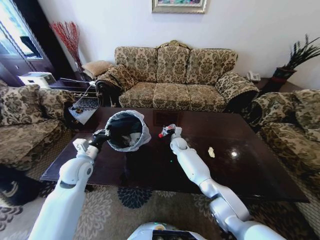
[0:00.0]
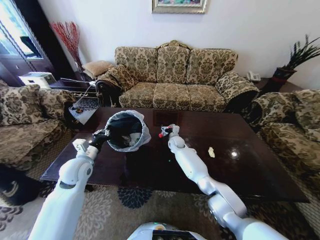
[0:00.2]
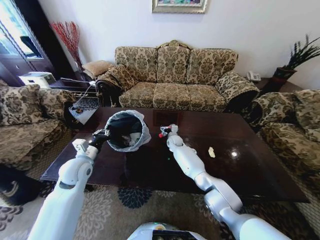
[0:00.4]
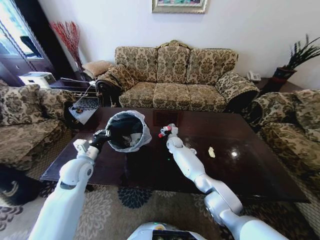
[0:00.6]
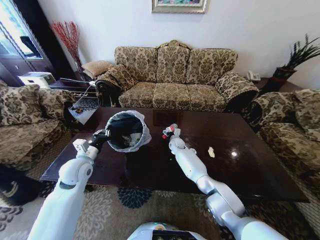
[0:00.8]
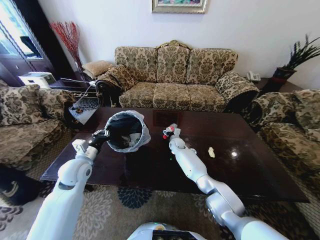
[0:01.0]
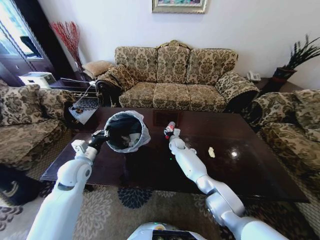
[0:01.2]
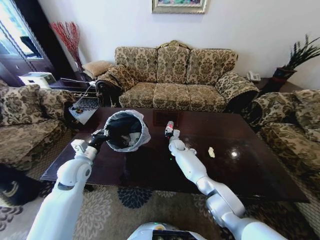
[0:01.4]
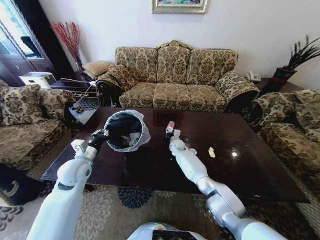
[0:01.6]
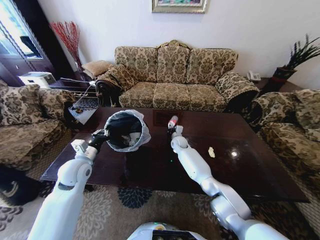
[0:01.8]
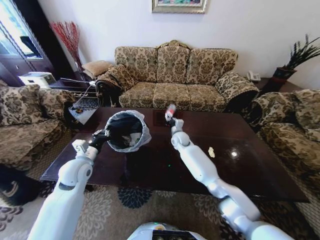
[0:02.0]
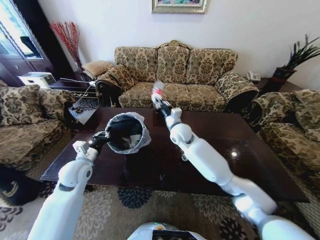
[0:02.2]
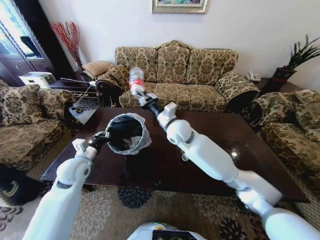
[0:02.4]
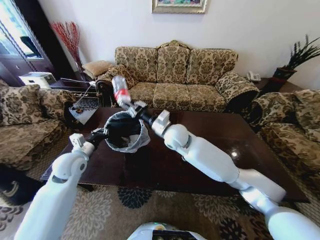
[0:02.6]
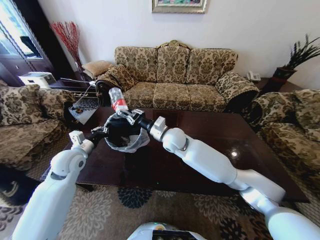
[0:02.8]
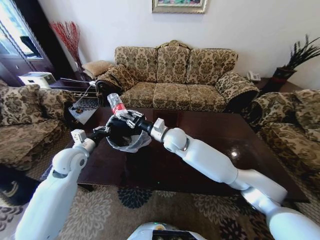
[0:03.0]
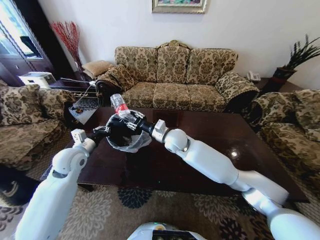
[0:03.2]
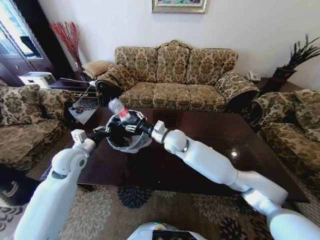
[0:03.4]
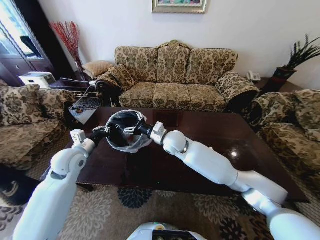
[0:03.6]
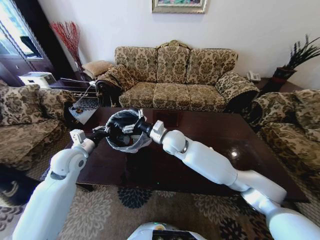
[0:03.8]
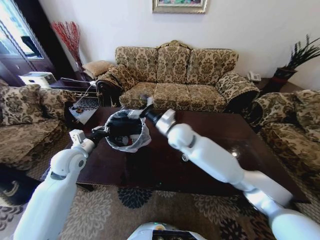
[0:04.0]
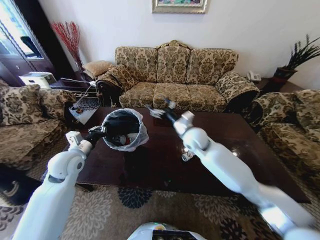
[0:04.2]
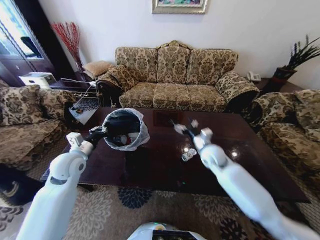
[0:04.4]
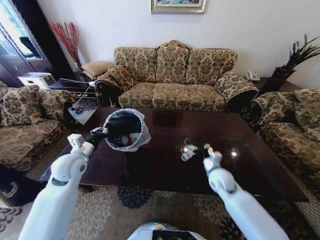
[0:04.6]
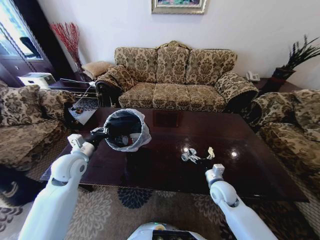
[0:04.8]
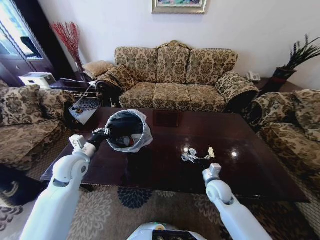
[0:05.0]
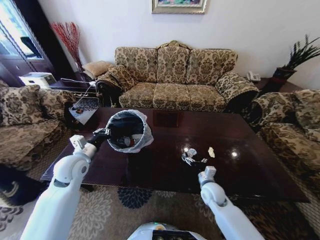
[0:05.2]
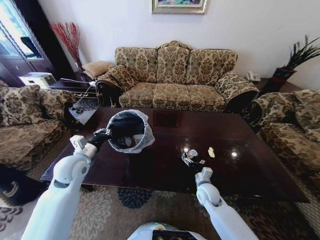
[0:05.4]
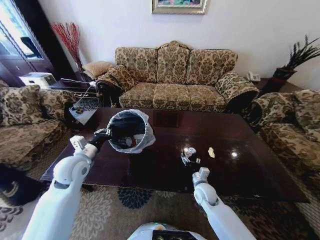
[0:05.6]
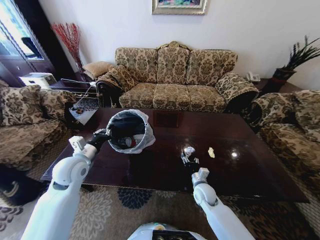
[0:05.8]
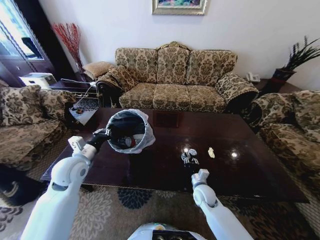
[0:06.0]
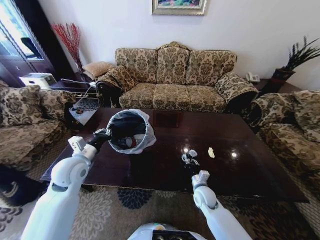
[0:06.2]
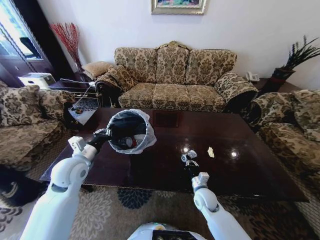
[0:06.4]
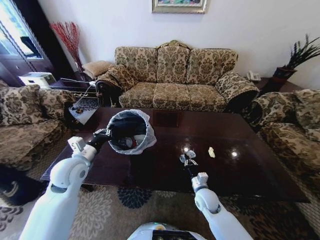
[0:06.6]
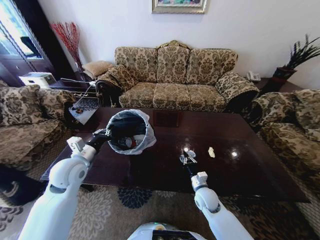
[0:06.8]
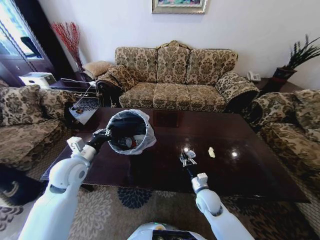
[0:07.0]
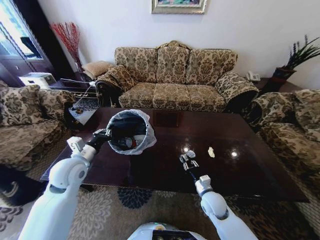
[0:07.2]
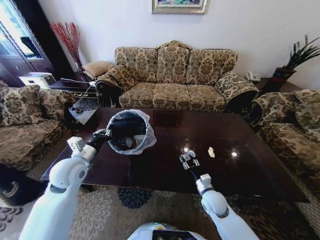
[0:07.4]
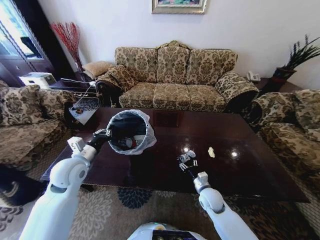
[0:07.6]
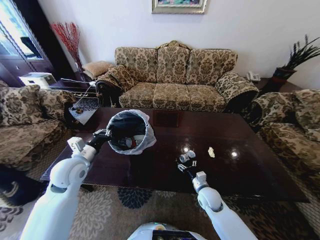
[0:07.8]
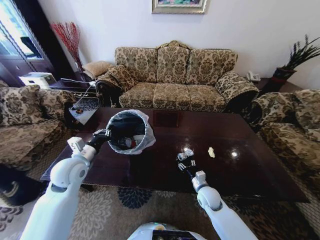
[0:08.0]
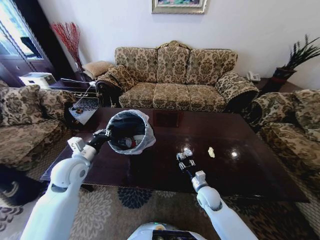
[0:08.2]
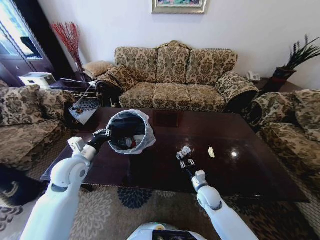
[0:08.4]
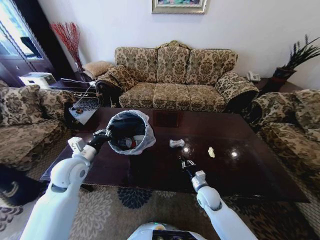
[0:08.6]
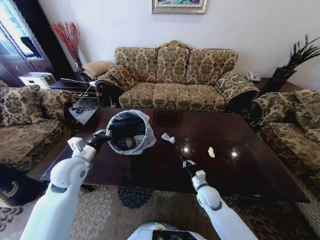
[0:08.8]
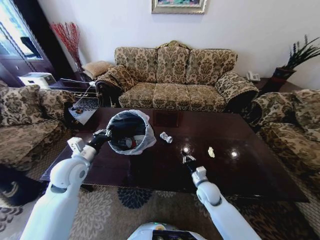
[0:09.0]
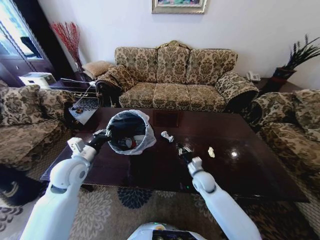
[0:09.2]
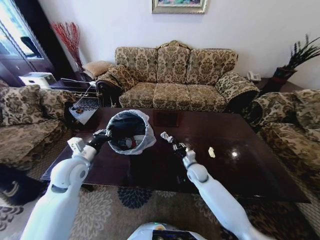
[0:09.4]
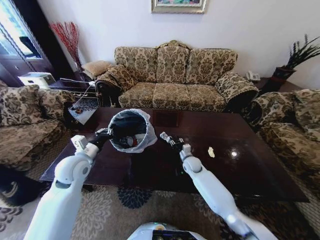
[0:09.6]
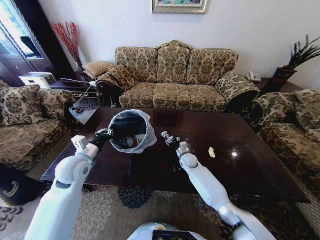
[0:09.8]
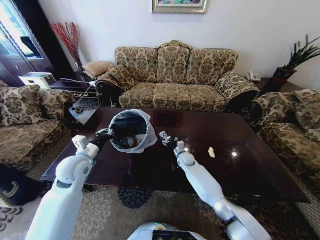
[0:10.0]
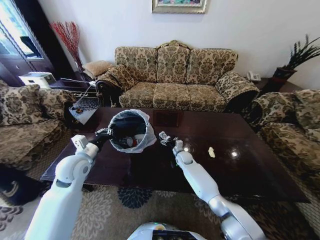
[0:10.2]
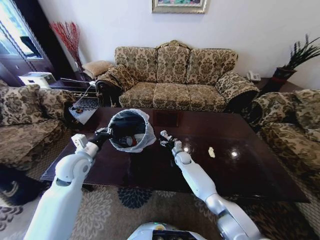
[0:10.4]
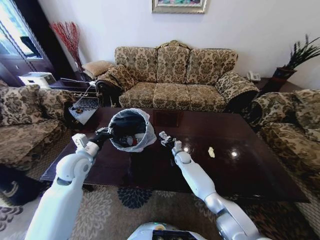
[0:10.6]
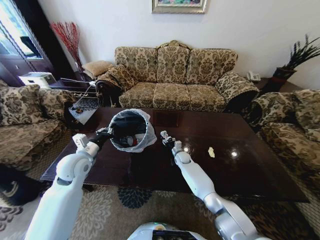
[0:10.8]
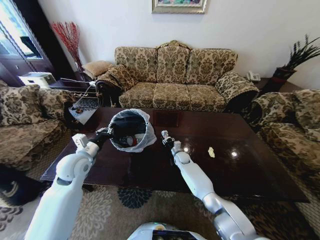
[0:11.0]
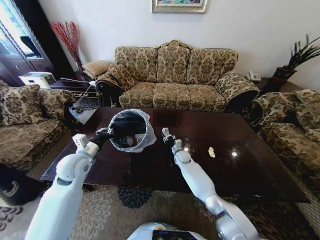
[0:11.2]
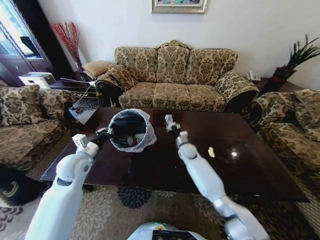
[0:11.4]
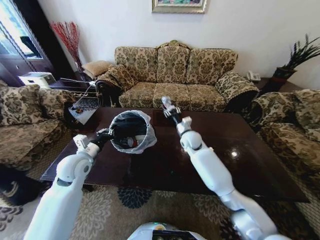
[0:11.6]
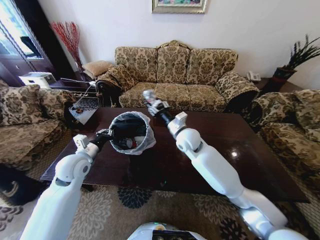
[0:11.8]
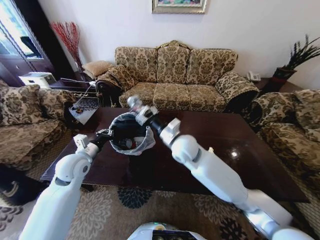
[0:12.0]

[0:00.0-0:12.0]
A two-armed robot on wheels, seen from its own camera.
Task of the whole recording: Move to the front of the table and place the trash on the table into the trash bin.
0:00.0 to 0:01.6: The right gripper closes its fingers.
0:01.6 to 0:03.0: The right gripper is displaced upward and backward by about 25 cm.
0:03.0 to 0:04.4: The right gripper heads to the right and downward, covering approximately 20 cm, and opens its fingers.
0:04.4 to 0:06.0: The right gripper travels downward and backward by some 20 cm, and closes its fingers.
0:07.6 to 0:09.0: The right gripper closes.
0:09.0 to 0:10.4: The right gripper is displaced forward and to the left by roughly 20 cm, and opens.
0:10.4 to 0:12.0: The right gripper shifts about 30 cm upward and backward, and closes up.

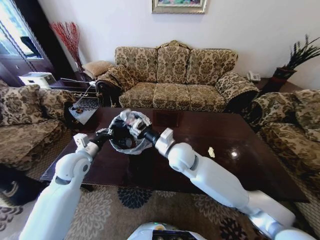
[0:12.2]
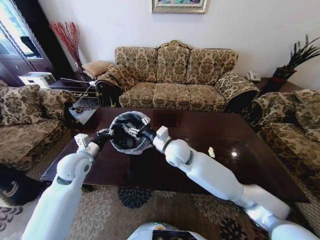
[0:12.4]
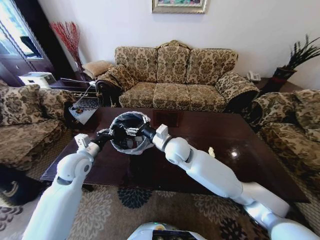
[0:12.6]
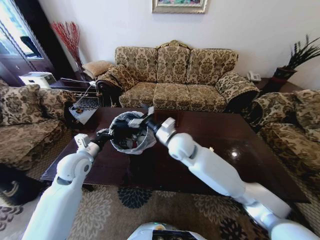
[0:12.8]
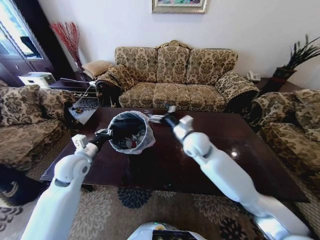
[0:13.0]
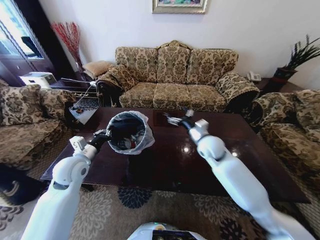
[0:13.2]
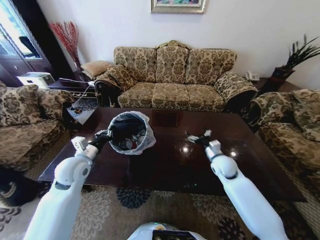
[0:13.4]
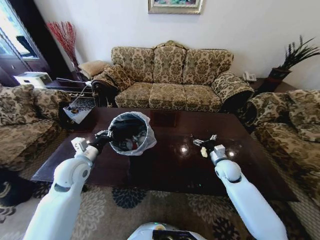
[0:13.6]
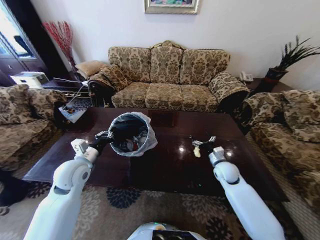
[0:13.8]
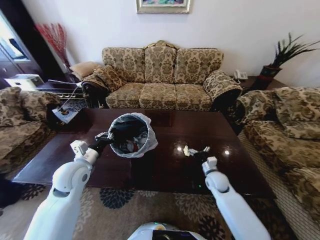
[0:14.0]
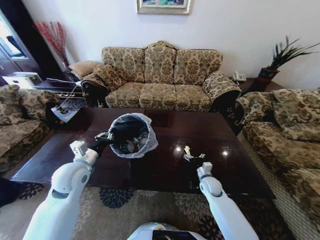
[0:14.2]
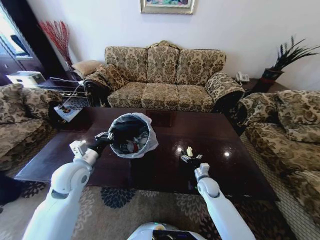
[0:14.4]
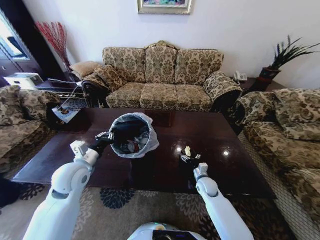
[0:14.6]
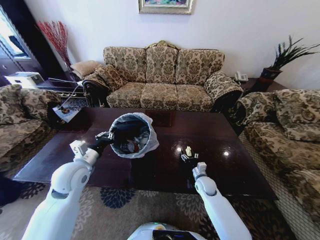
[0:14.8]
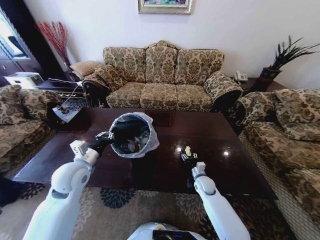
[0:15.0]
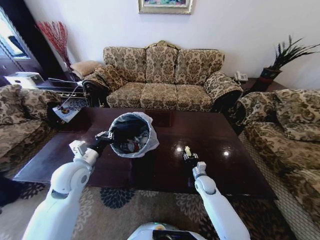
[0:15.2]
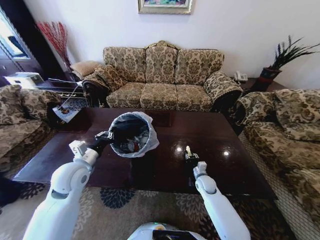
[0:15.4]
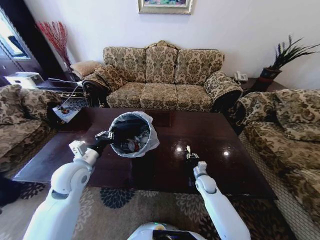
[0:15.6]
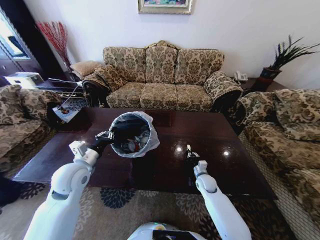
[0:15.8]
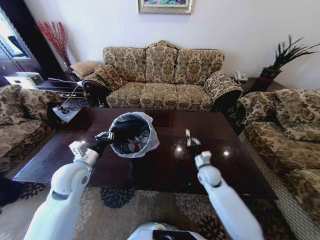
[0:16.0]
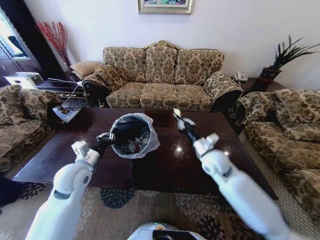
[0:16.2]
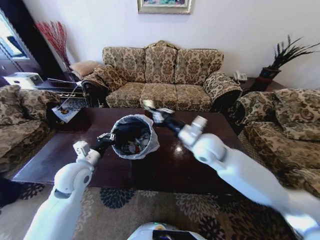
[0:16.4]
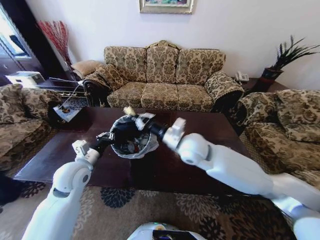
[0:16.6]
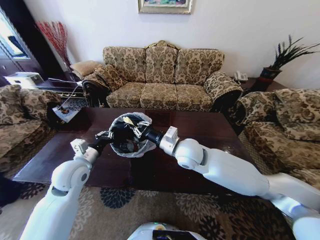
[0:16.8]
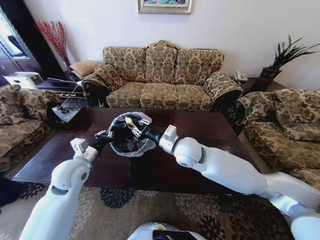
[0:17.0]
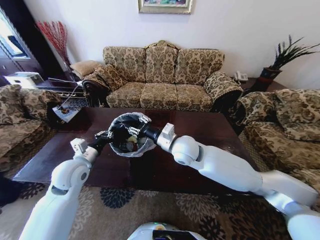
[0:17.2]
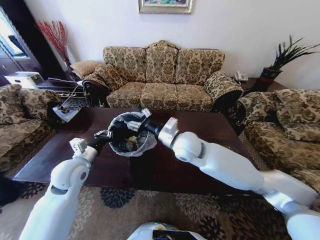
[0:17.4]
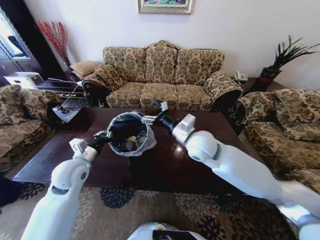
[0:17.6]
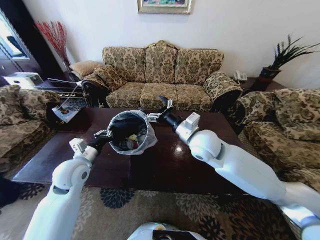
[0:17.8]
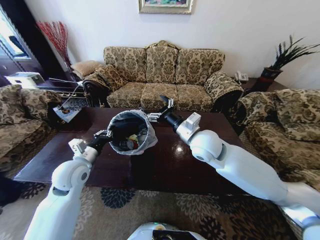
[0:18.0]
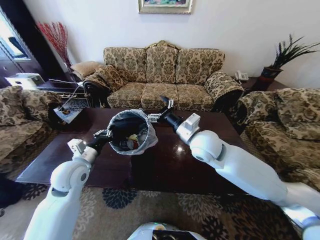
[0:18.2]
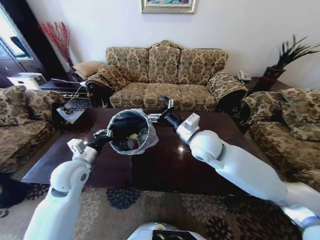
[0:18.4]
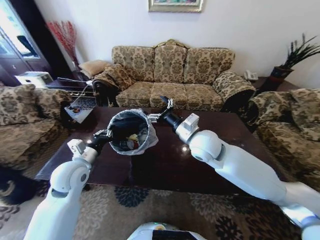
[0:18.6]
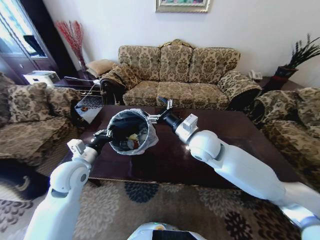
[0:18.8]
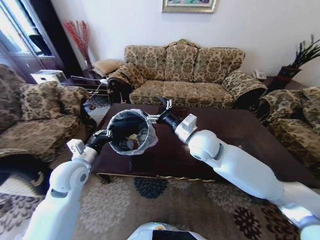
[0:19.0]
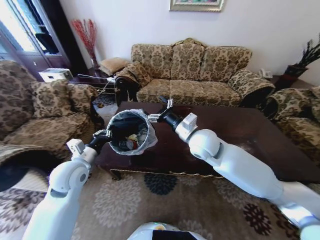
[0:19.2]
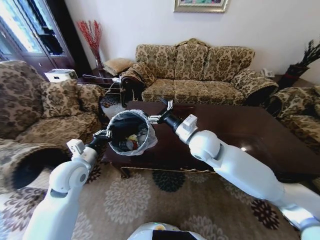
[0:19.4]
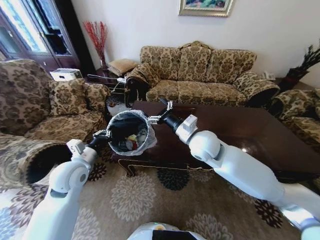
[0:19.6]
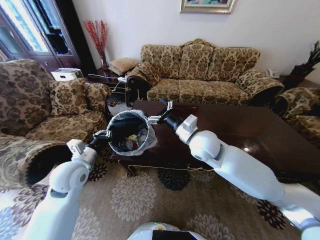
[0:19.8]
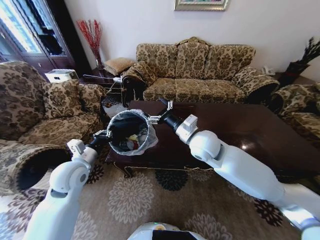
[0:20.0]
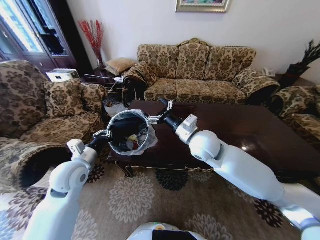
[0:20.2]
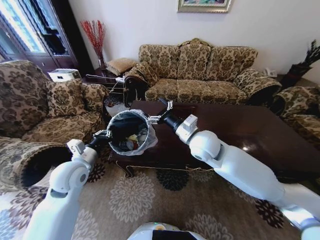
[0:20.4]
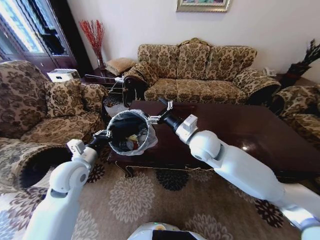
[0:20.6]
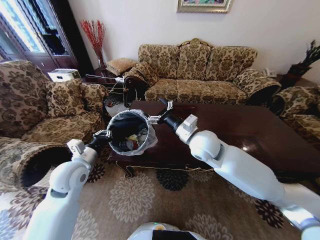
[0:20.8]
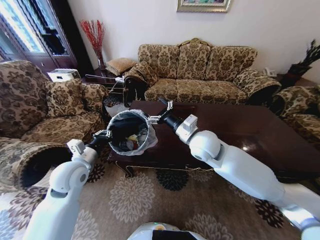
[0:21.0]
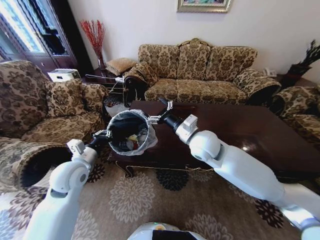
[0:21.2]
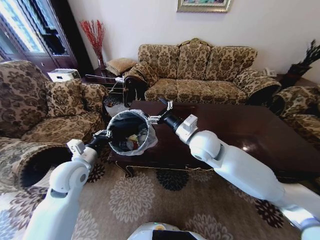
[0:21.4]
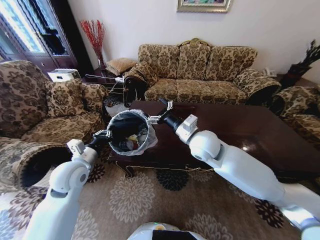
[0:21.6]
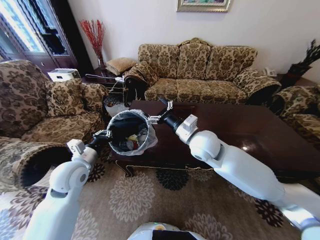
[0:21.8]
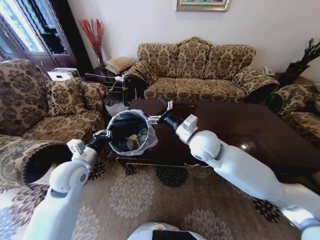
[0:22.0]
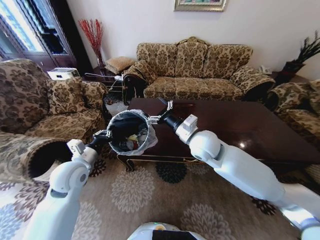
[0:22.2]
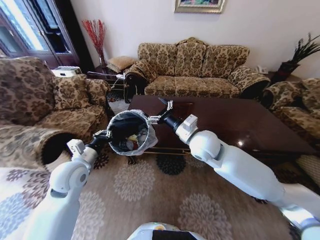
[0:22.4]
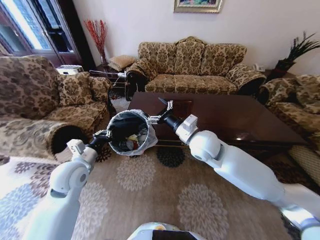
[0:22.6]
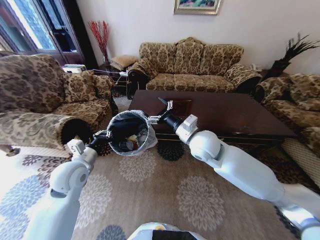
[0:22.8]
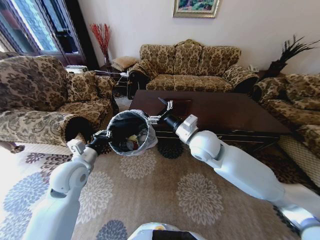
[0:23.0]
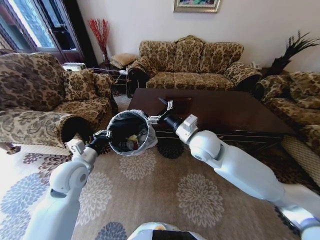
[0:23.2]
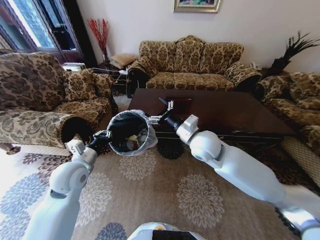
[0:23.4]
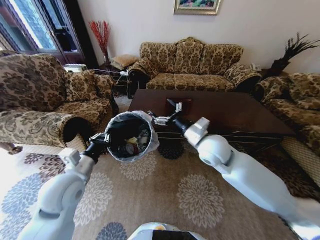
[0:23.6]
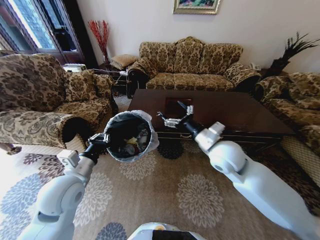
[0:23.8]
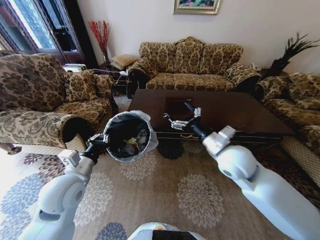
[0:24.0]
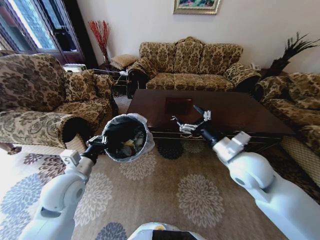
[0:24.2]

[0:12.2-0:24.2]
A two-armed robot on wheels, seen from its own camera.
Task of the whole recording: Move to the front of the table and place the trash on the table into the trash bin.
0:12.2 to 0:13.8: The right gripper heads to the right and downward, covering about 30 cm, and opens.
0:13.8 to 0:15.2: The right gripper shifts some 15 cm downward and to the left, and closes up.
0:15.2 to 0:16.6: The right gripper moves upward and to the left, about 35 cm, and closes up.
0:16.6 to 0:18.2: The right gripper opens up.
0:19.8 to 0:21.2: Neither gripper changes place.
0:22.6 to 0:24.2: The right gripper is displaced to the right and backward by approximately 15 cm.
